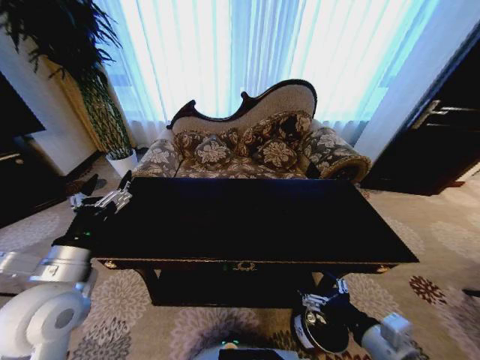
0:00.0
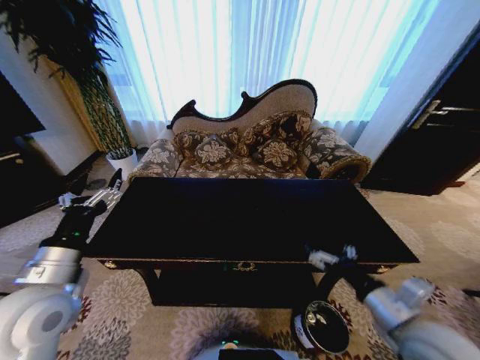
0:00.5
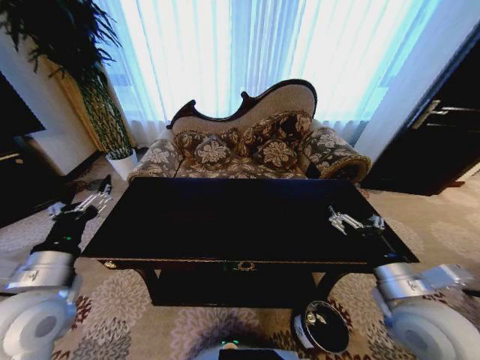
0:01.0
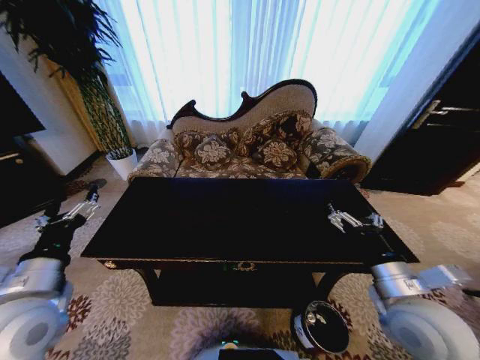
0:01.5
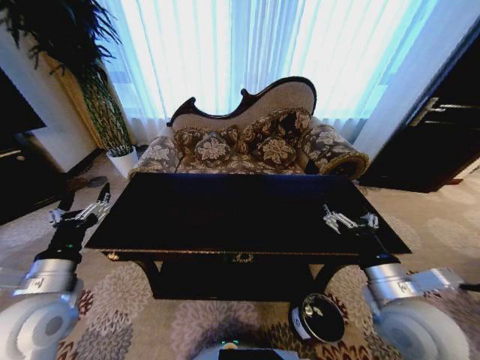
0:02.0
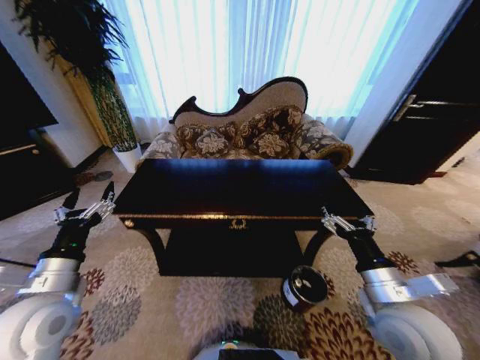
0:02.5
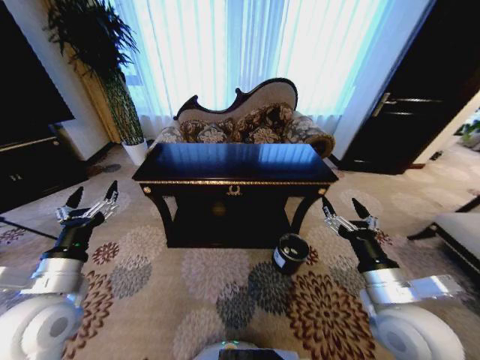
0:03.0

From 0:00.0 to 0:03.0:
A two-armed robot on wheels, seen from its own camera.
Task of the whole recording: Move to the front of the table and place the trash on the table into the trash bin.
From 0:00.0 to 0:01.5: The right gripper travels forward and upward by approximately 10 cm.

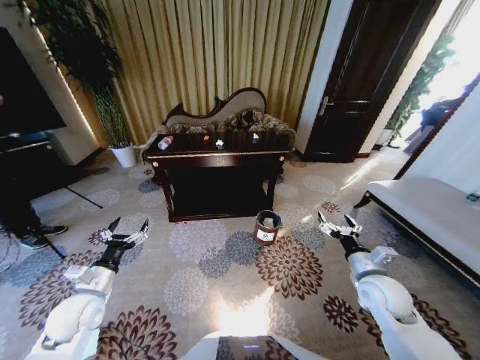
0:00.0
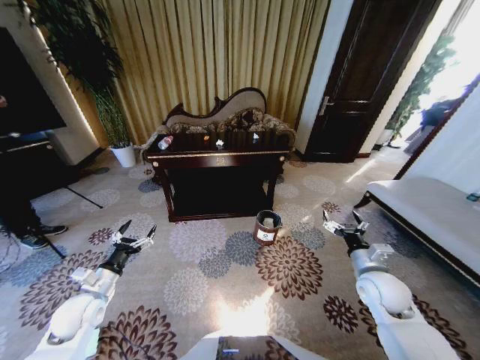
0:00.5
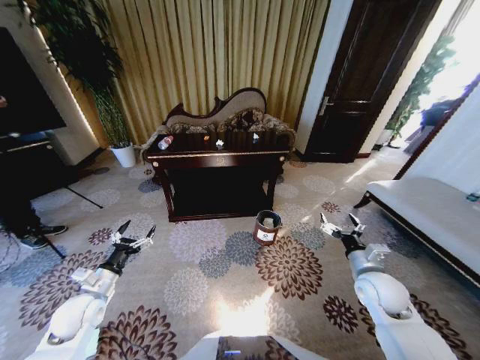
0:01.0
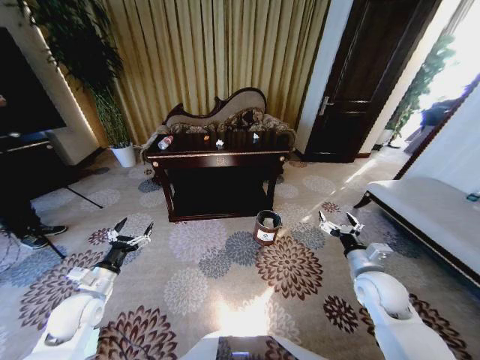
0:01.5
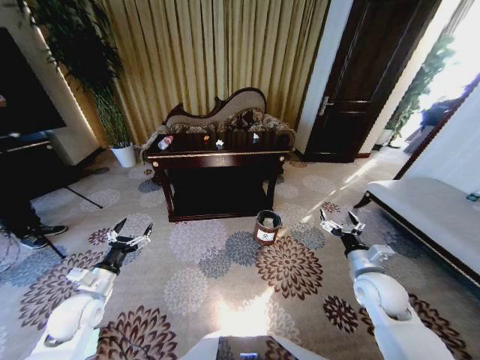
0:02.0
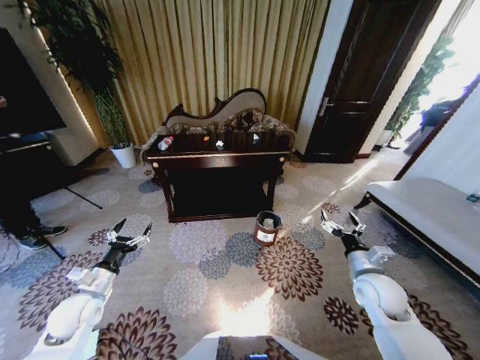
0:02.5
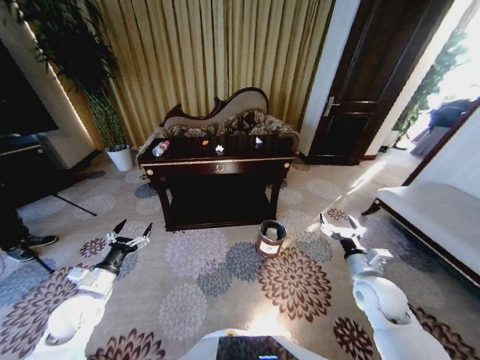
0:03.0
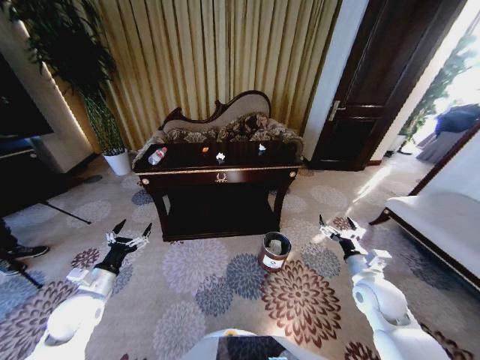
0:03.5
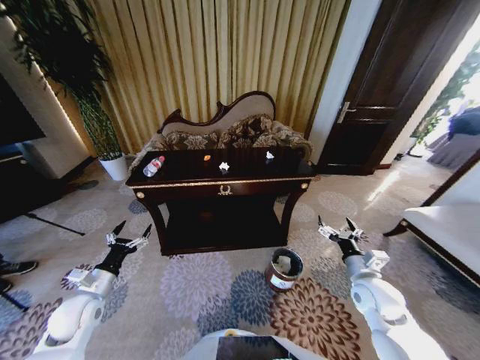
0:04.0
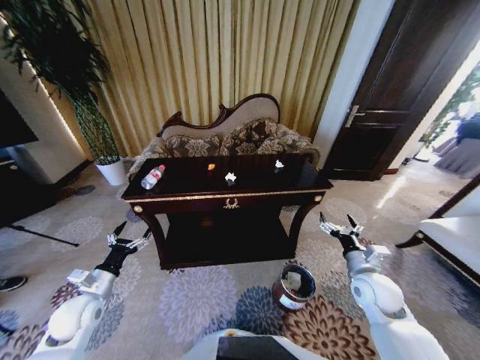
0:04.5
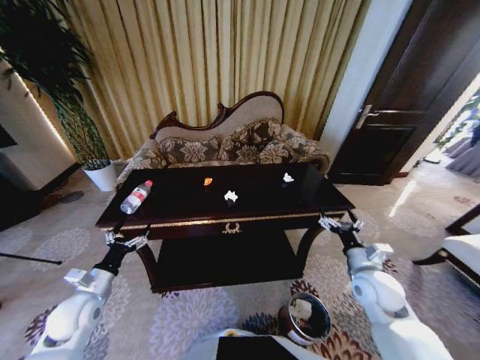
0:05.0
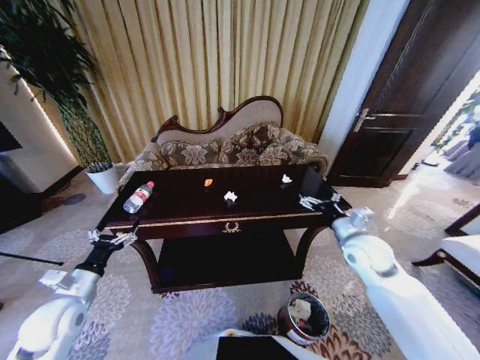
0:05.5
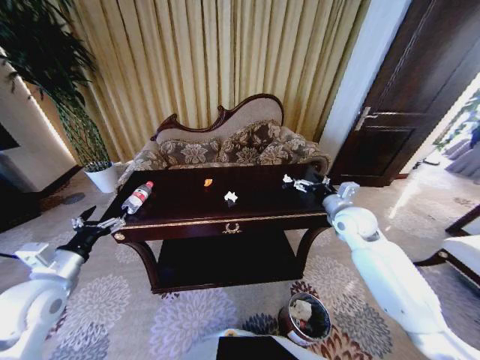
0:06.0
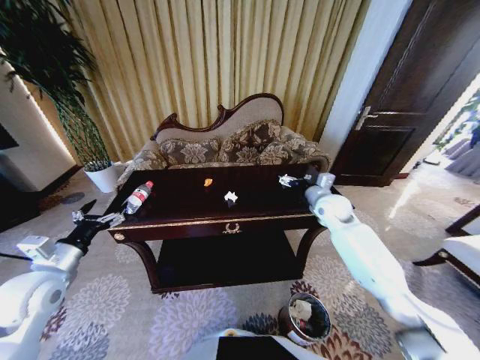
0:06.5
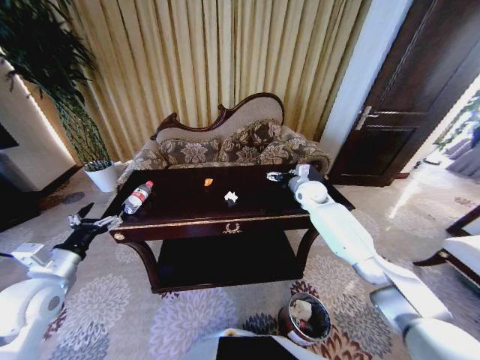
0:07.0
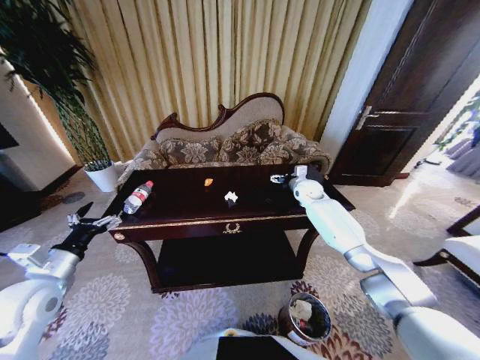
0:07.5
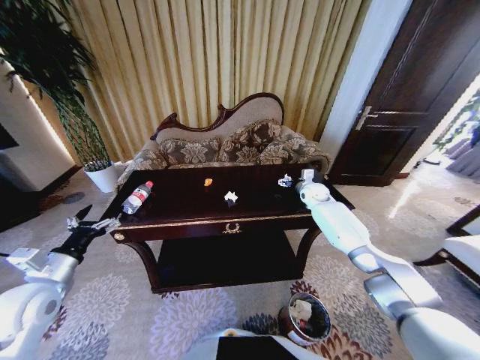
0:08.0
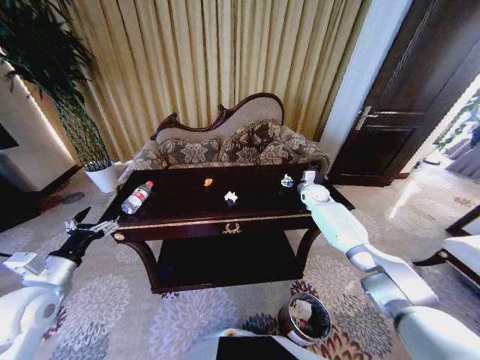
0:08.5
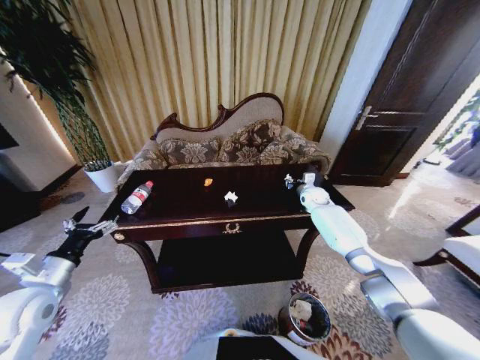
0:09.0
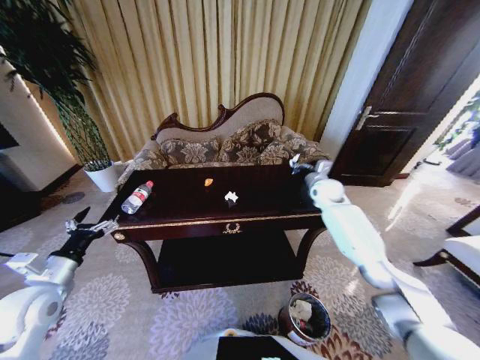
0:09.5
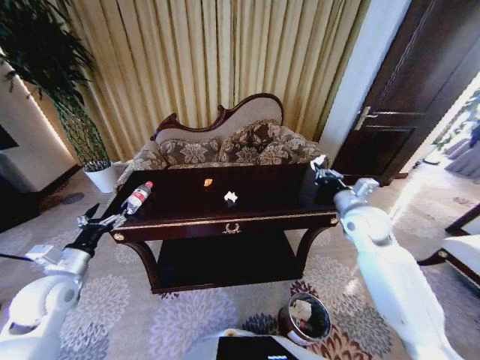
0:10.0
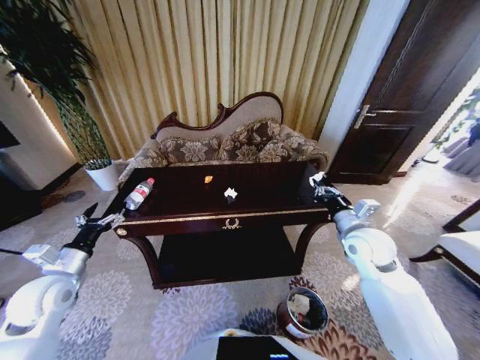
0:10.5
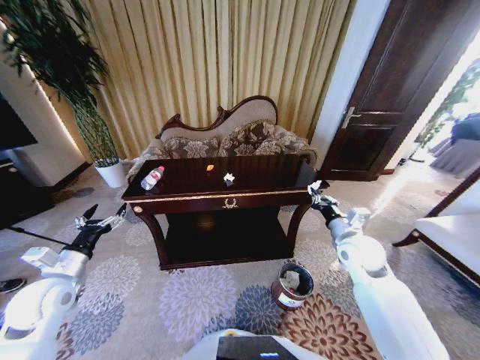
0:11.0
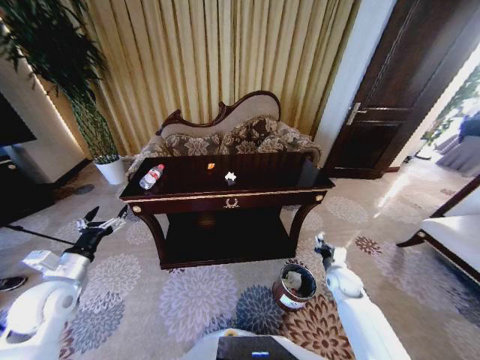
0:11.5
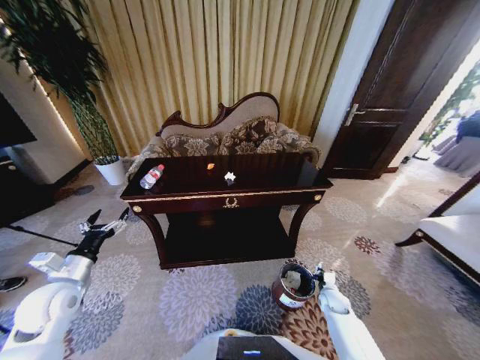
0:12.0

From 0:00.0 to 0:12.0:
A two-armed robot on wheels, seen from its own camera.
Task of the whole recording: Move to the front of the table and place the trash on the table into the trash bin.
From 0:04.0 to 0:06.0: The right gripper travels forward and upward by approximately 20 cm; the left gripper goes some 15 cm upward.
From 0:06.0 to 0:08.0: The right gripper is displaced forward by roughly 20 cm.
From 0:08.0 to 0:10.0: The right gripper shifts some 20 cm backward, and closes.
From 0:10.0 to 0:12.0: The right gripper shifts roughly 35 cm downward.

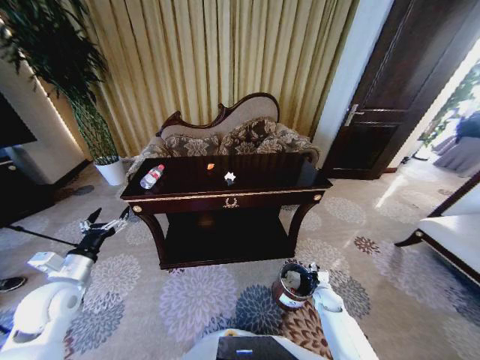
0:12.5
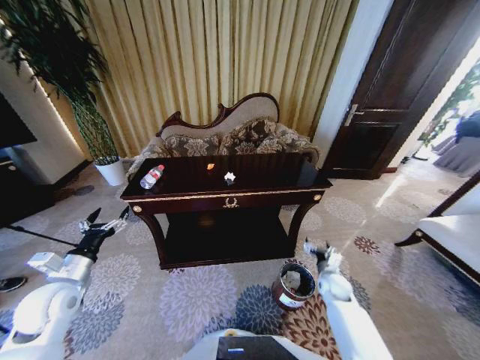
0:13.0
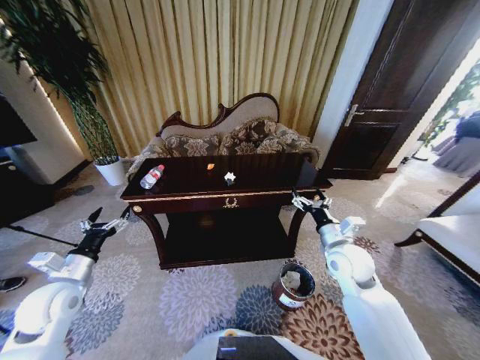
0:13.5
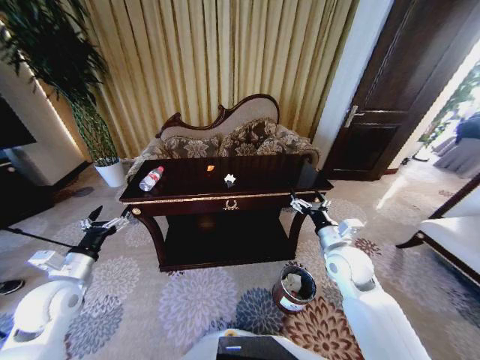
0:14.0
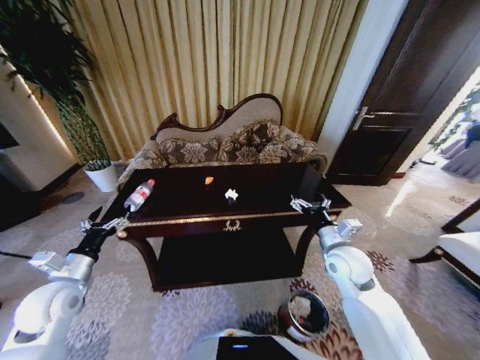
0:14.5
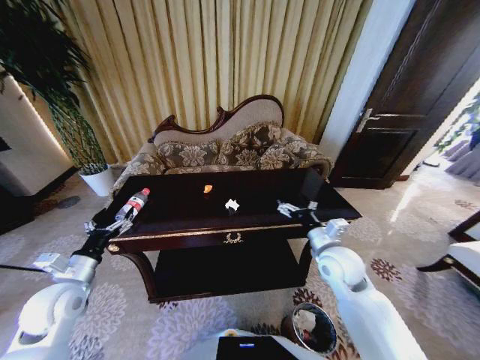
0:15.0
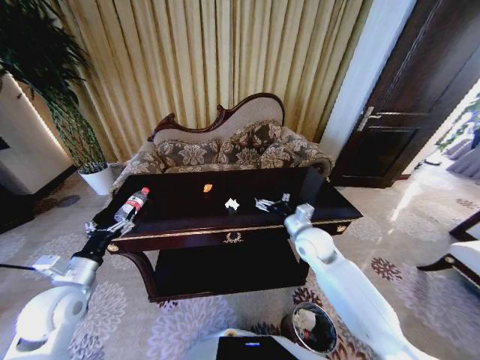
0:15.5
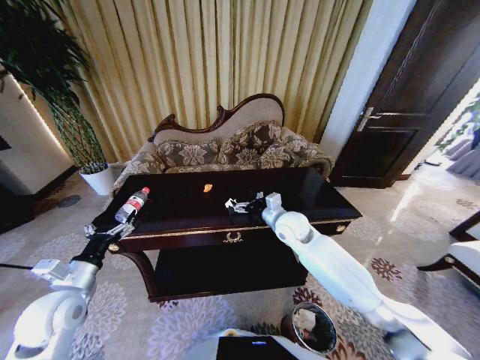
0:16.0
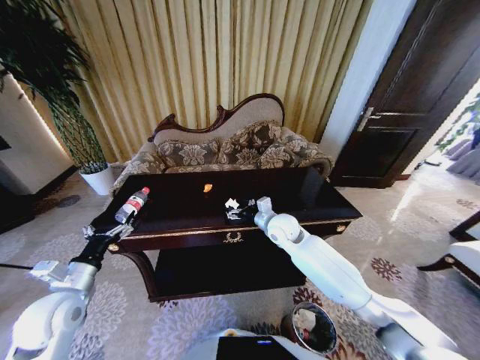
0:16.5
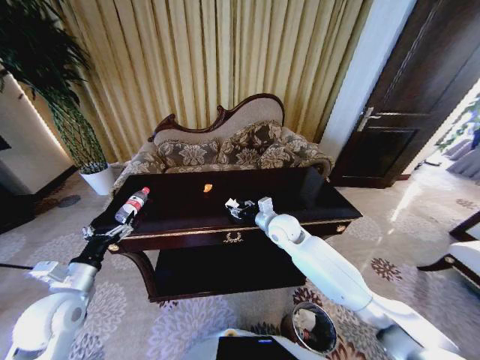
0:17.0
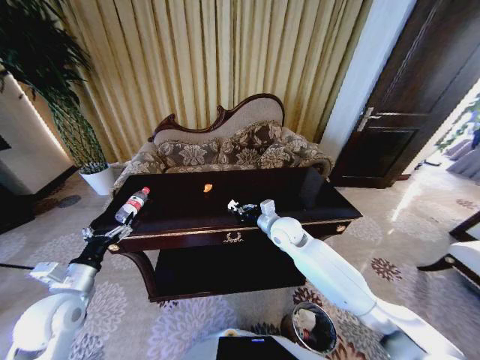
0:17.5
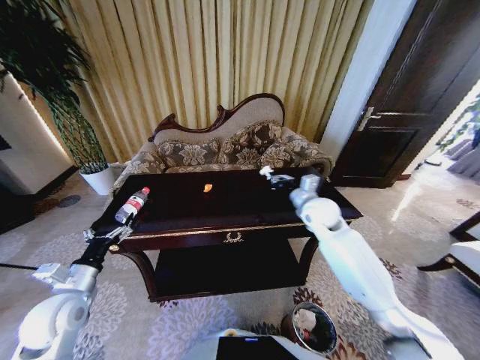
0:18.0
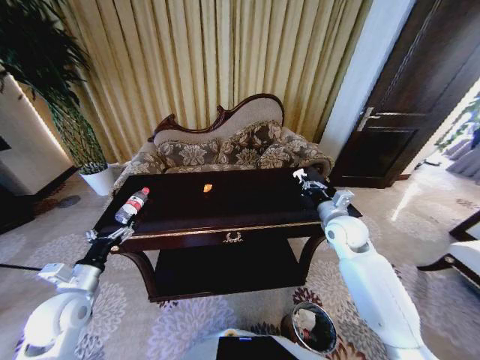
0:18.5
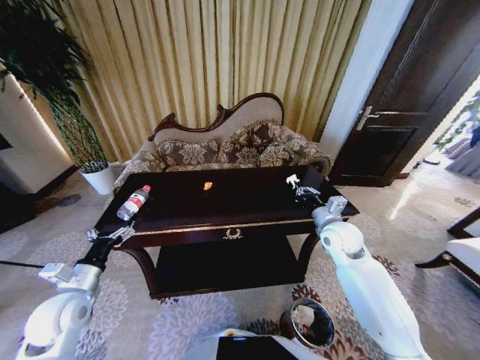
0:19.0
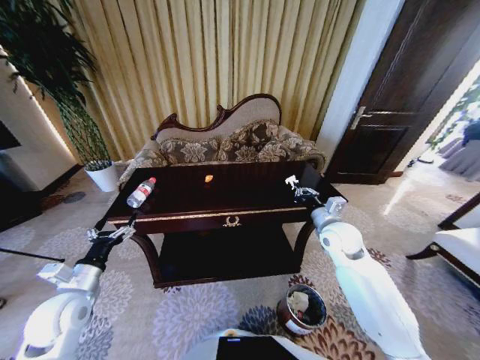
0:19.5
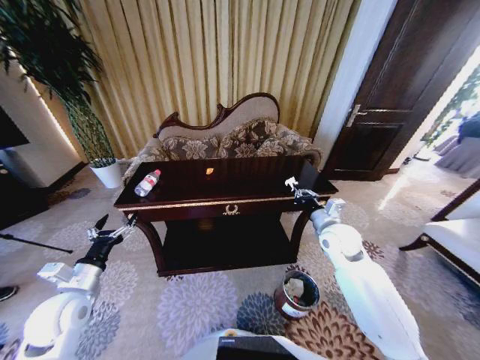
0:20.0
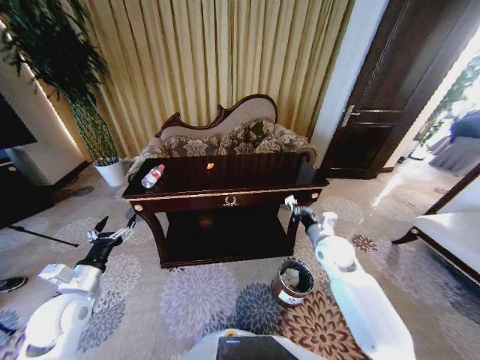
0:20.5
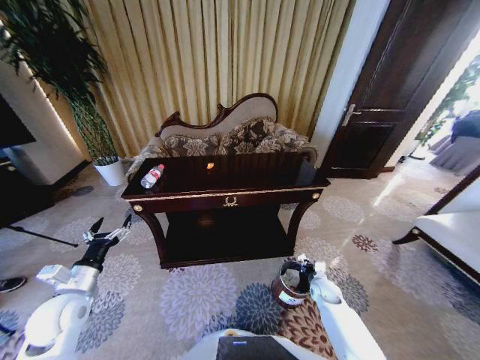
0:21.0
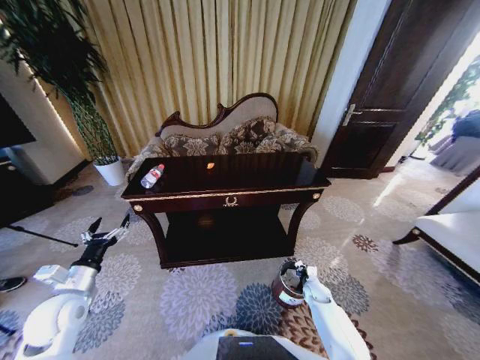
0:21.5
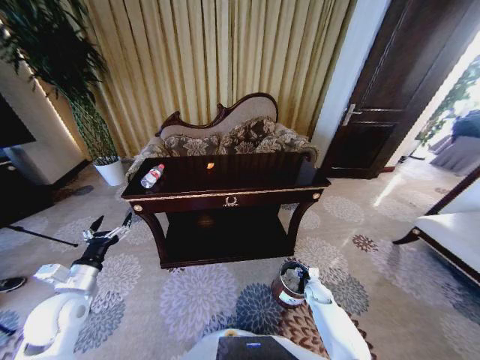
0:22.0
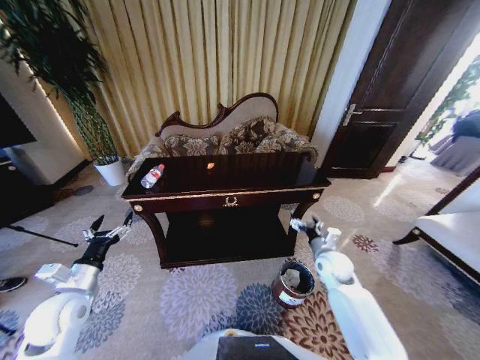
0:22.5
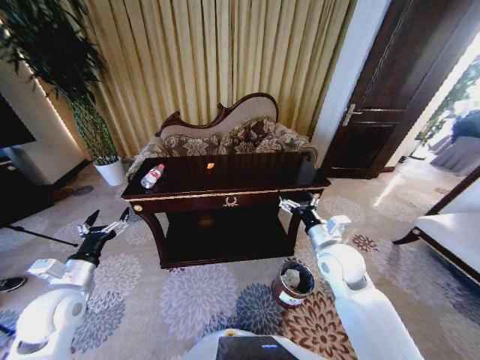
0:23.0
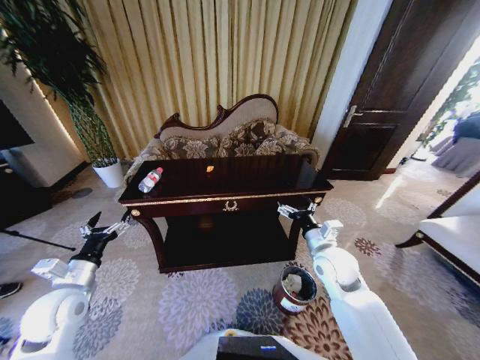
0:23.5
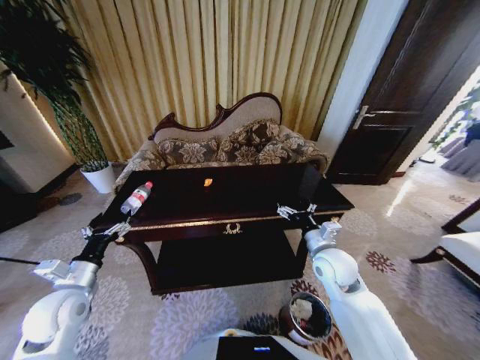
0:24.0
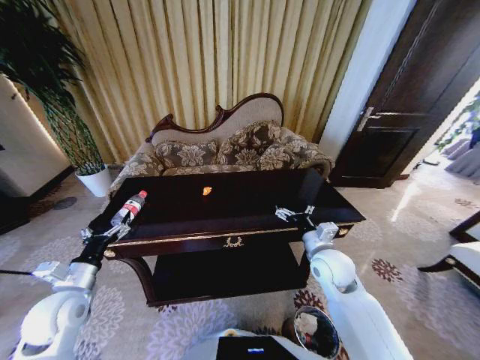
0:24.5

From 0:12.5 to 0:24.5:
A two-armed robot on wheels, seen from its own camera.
Task of the whole recording: Move to the front of the table and place the trash on the table into the trash bin.
From 0:12.5 to 0:14.5: The right gripper shifts roughly 30 cm upward, and opens its fingers.
From 0:14.5 to 0:16.5: The right gripper heads to the left and forward, covering roughly 20 cm.
From 0:16.5 to 0:18.5: The right gripper travels to the right by some 15 cm, and closes.
From 0:18.5 to 0:20.5: The right gripper travels downward by roughly 5 cm.
From 0:20.5 to 0:22.5: The right gripper moves approximately 30 cm downward and comes back, and opens.
From 0:22.5 to 0:24.5: The right gripper shifts approximately 10 cm upward and to the left.
